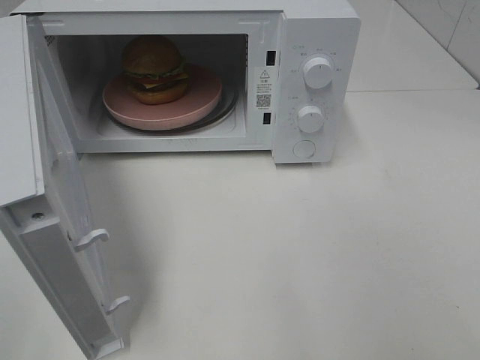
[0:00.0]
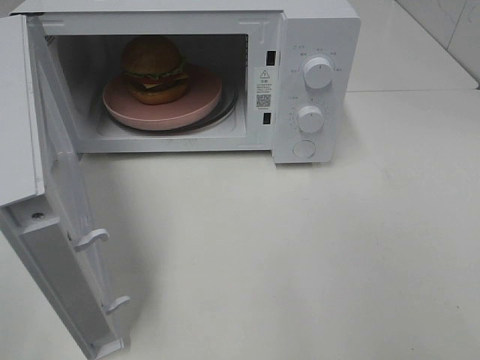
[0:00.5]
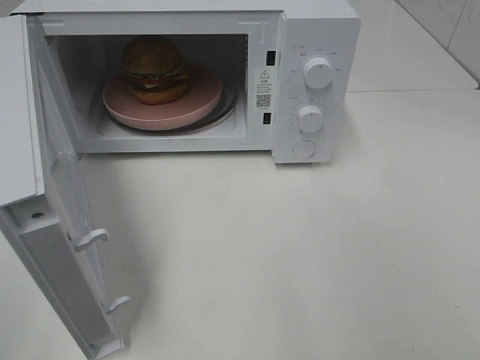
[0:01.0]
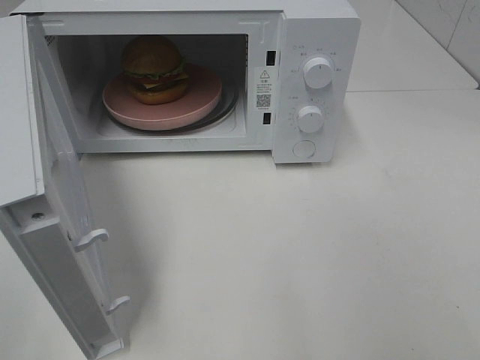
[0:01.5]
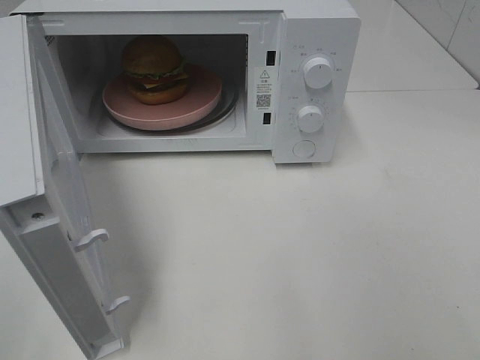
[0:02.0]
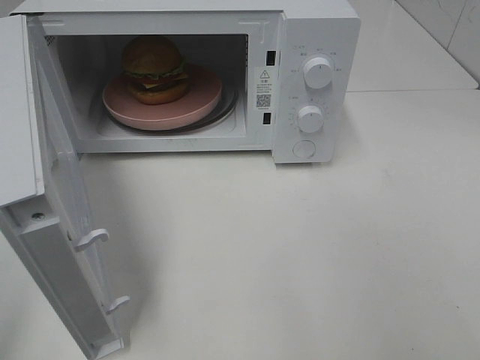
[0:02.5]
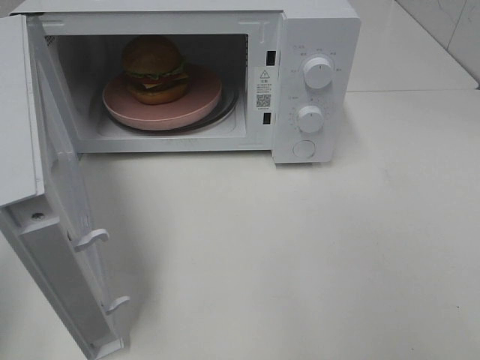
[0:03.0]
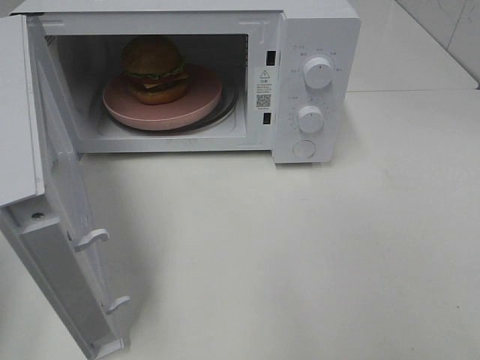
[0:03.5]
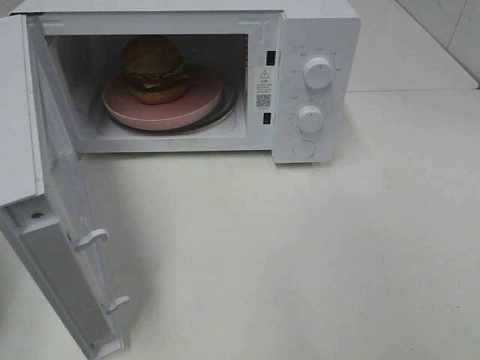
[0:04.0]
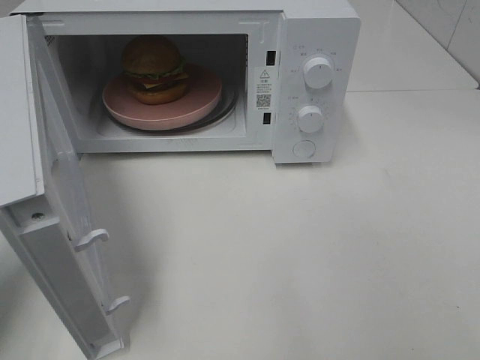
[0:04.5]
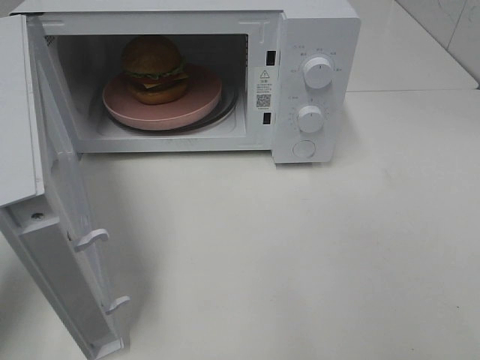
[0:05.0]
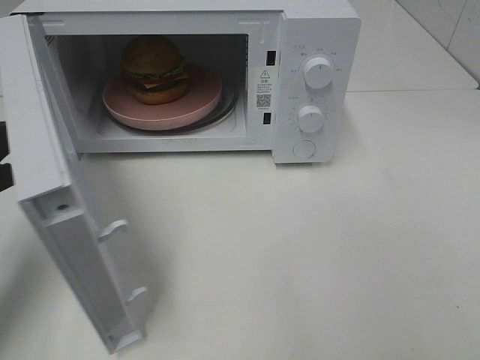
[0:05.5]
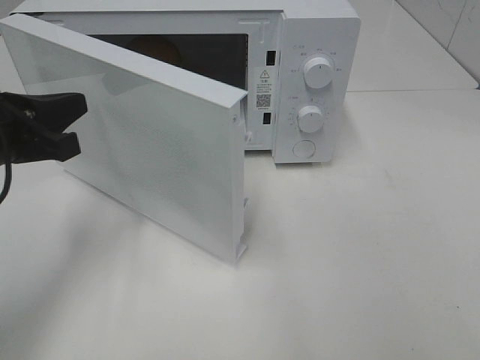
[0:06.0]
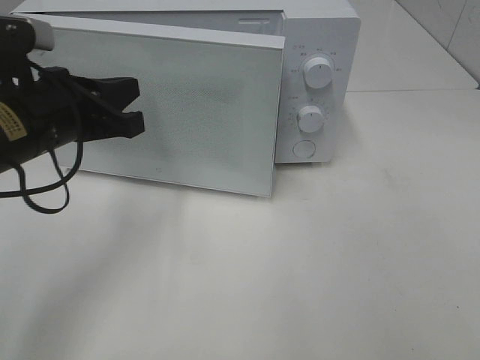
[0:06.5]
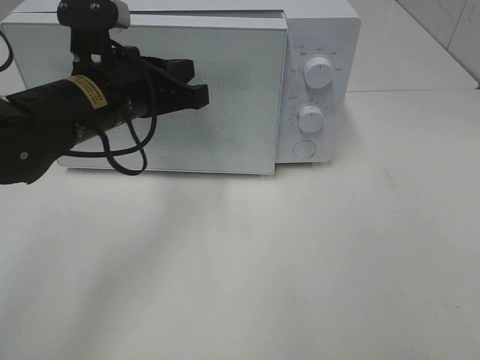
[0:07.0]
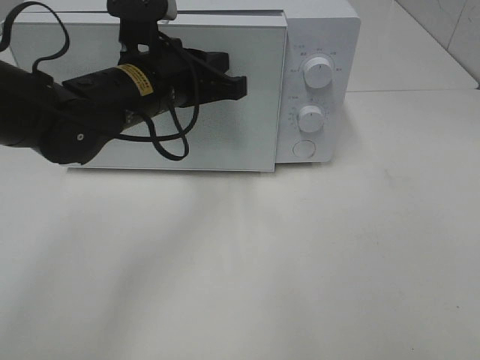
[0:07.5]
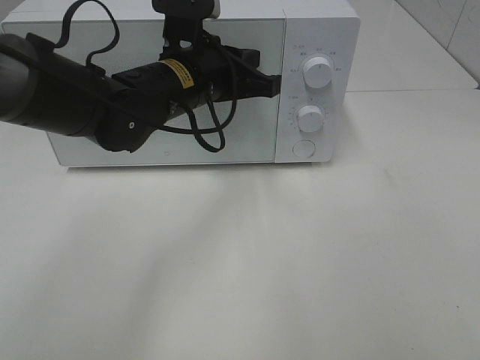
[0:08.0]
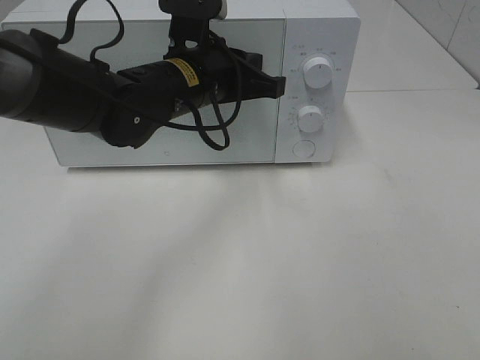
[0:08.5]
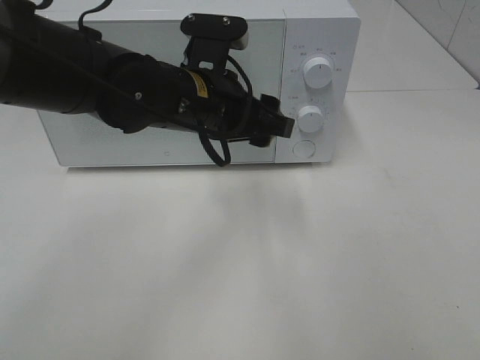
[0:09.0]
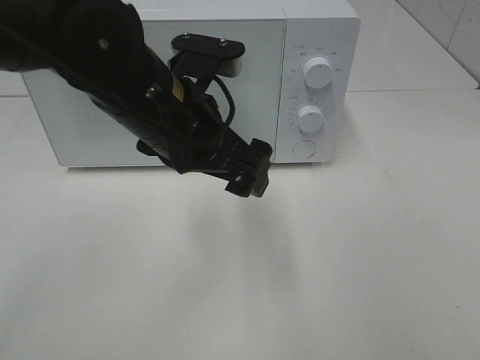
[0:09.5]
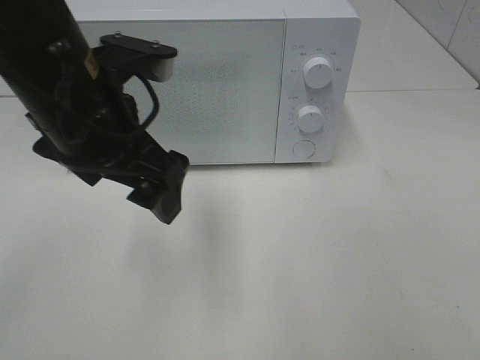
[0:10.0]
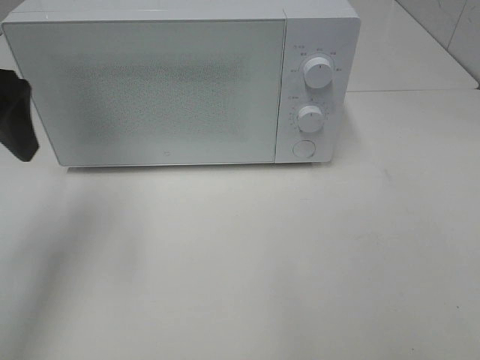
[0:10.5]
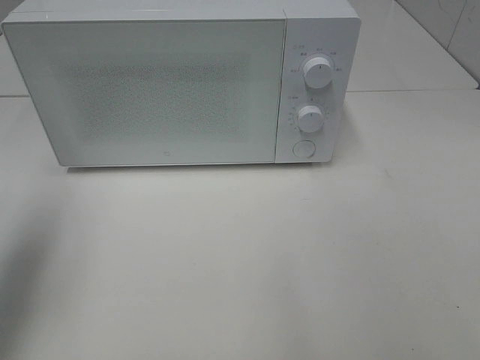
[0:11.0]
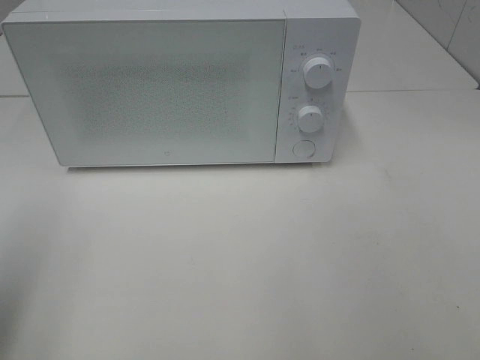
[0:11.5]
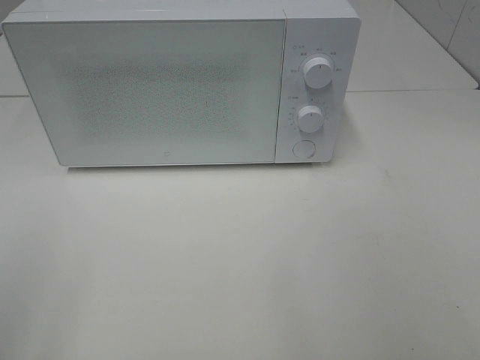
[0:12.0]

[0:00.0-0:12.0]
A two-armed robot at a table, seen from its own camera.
Task of the whole recording: Heat the burger.
Step, 0:00.0 to 0:08.5: Left hand: close the microwave door.
0:00.0 to 0:02.0: Neither gripper changes place.
0:04.0 to 0:06.0: The left gripper travels to the right and forward by approximately 15 cm.
0:06.0 to 0:08.0: The left gripper goes some 20 cm to the right and forward.
0:08.0 to 0:10.0: The left gripper heads backward, to the left and upward, covering about 15 cm, and opens up.
0:10.0 to 0:12.0: The left gripper heads backward and to the left, covering some 30 cm.

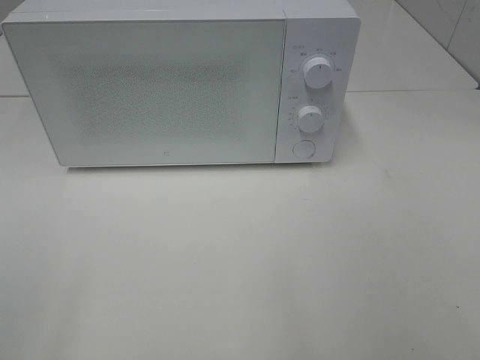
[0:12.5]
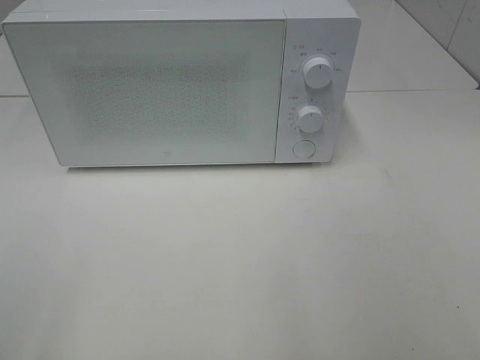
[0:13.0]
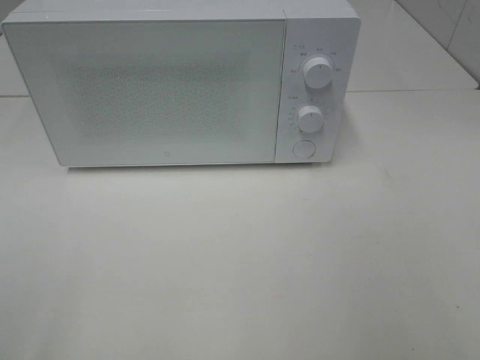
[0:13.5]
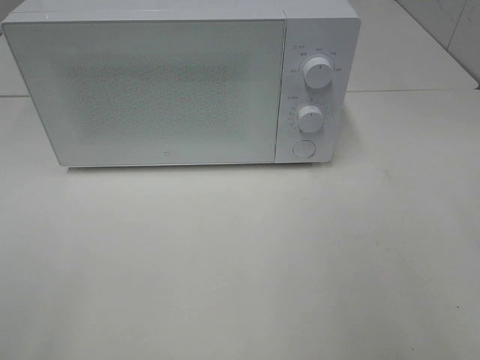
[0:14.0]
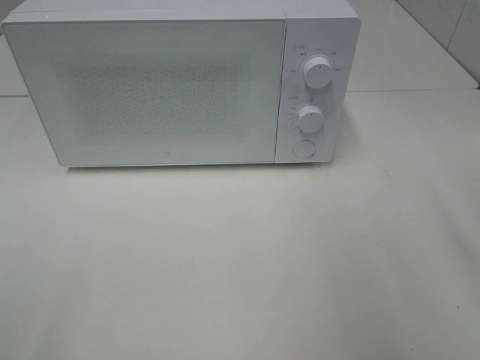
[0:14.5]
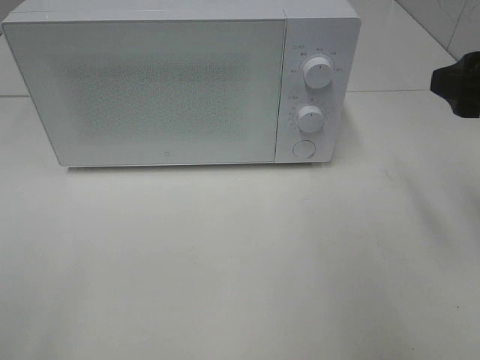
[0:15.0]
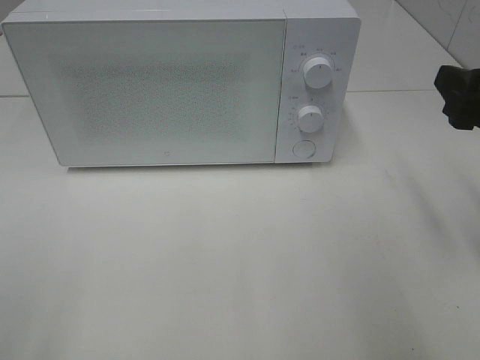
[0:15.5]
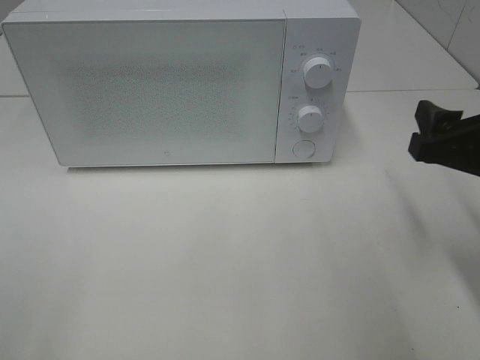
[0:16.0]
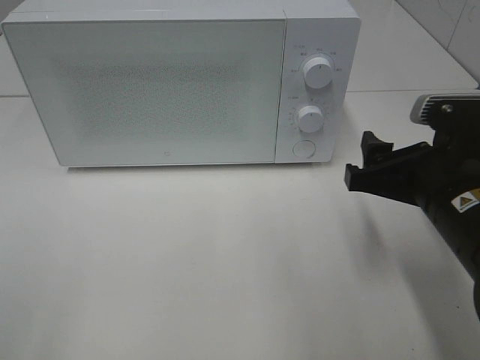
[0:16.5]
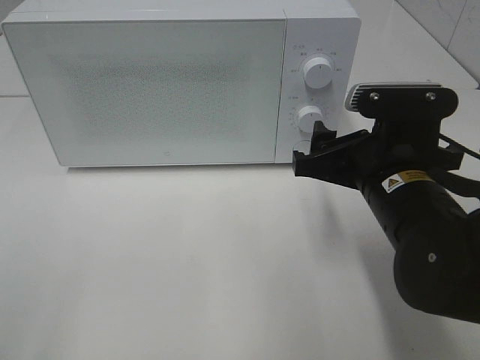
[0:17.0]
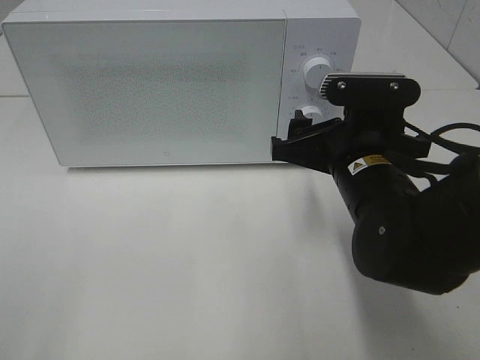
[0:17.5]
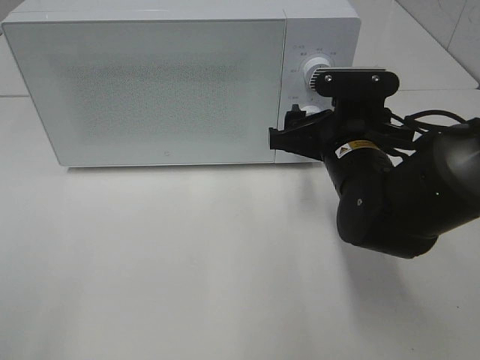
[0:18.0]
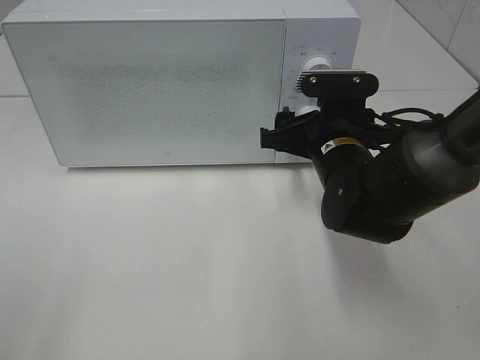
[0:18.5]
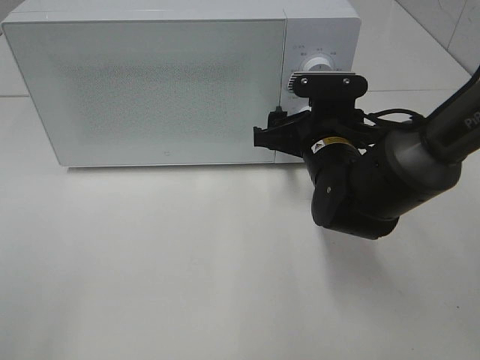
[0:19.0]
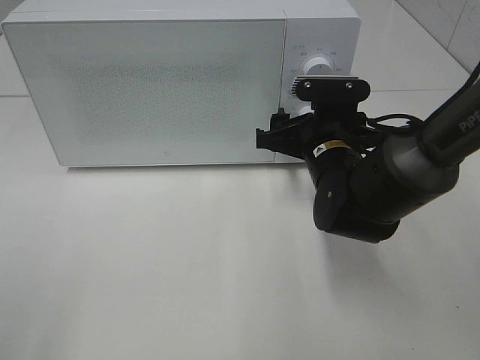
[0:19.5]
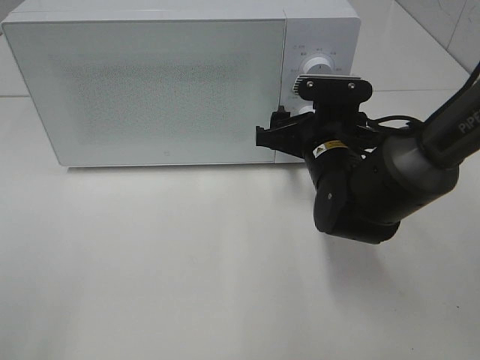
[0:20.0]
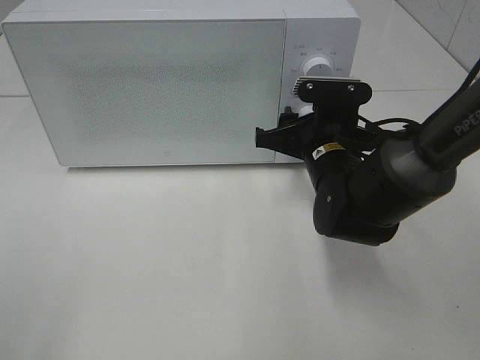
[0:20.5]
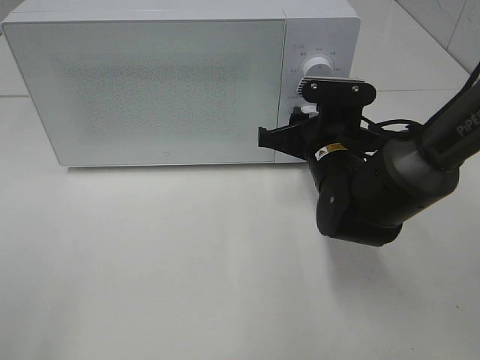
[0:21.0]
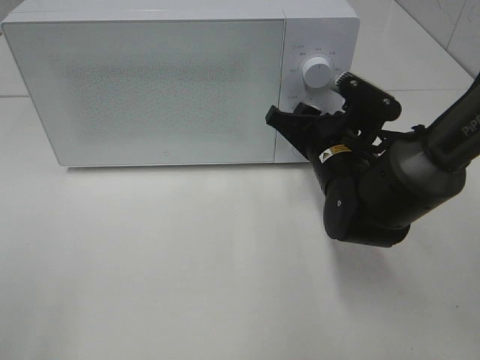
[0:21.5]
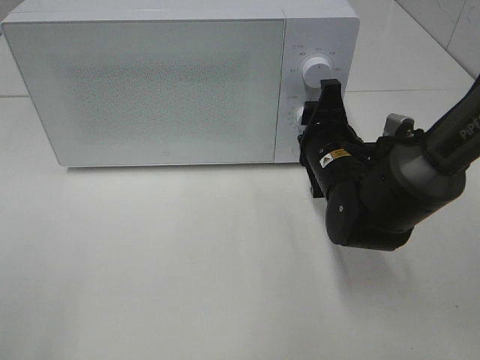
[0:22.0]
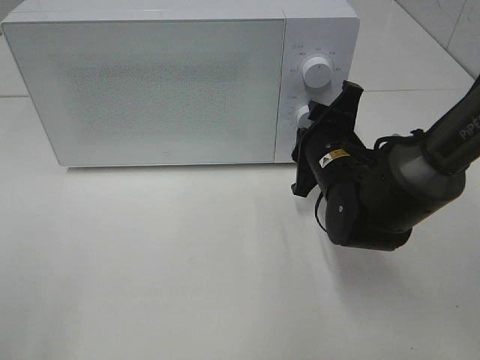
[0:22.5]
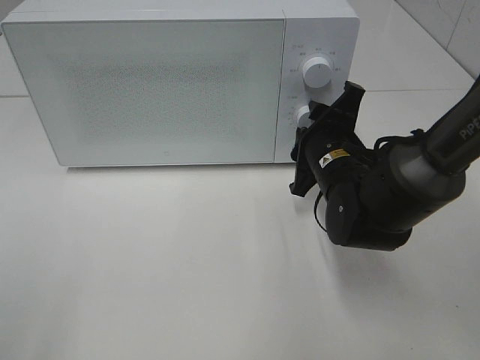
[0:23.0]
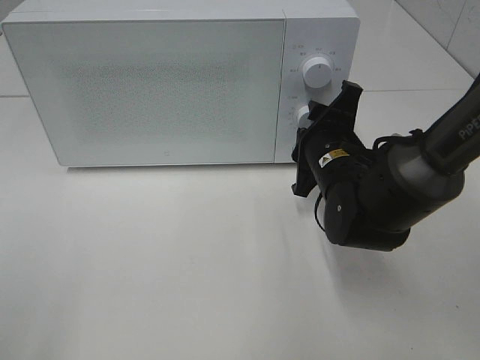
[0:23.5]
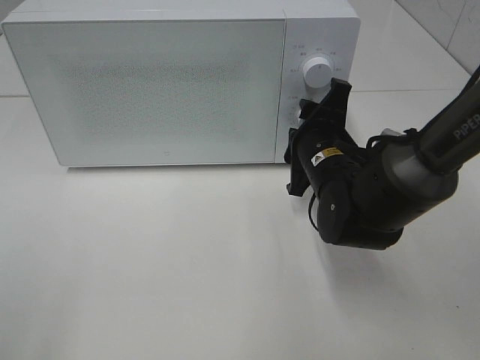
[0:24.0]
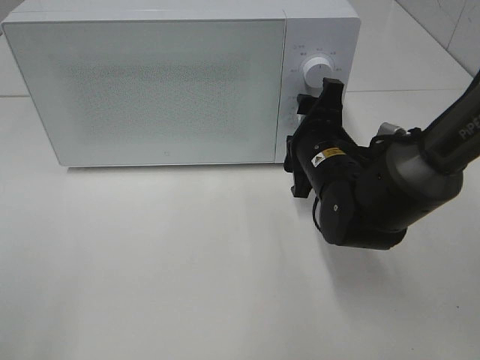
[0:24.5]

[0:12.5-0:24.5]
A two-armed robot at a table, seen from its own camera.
Task of the whole recording: Heat the burger.
Step, 0:12.5 to 0:24.0: Right hand: twist timer button.
0:14.5 to 0:16.5: The right gripper shifts roughly 15 cm downward and to the left.
0:16.5 to 0:18.5: The right gripper heads forward and to the left, covering approximately 15 cm.
0:18.5 to 0:20.5: There are only small adjustments of the grippers.
0:22.5 to 0:24.5: The grippers move only a little.

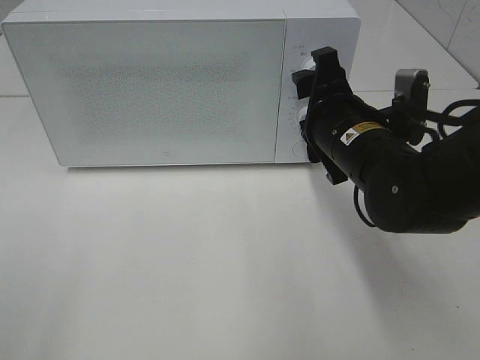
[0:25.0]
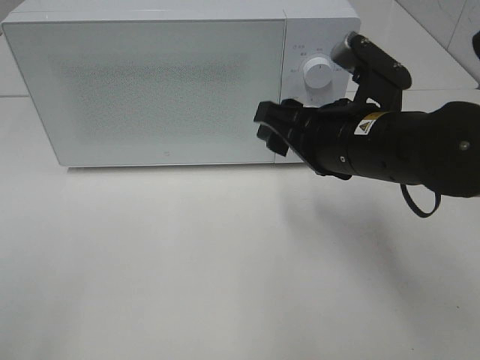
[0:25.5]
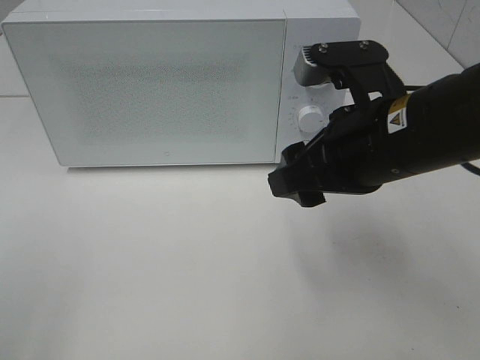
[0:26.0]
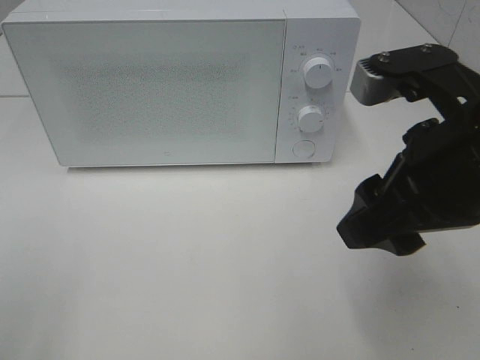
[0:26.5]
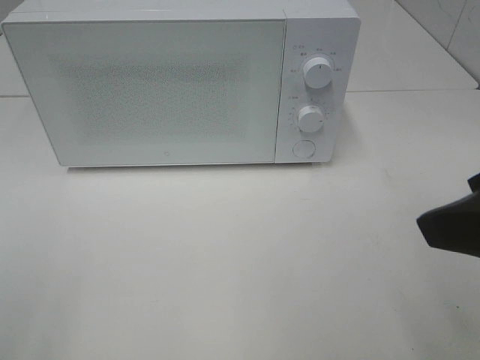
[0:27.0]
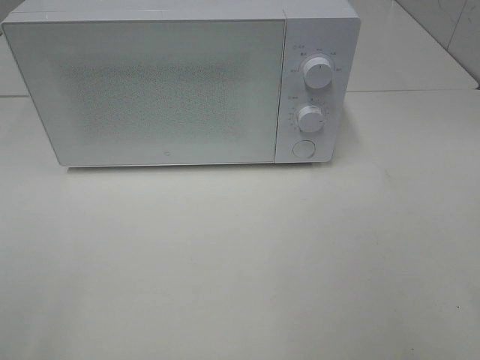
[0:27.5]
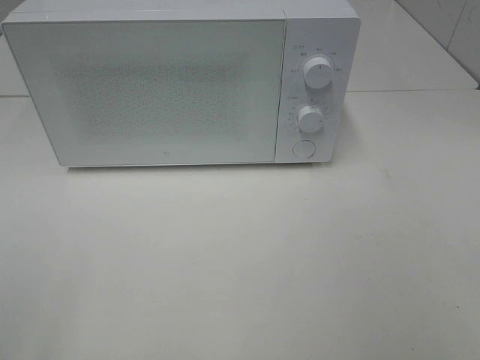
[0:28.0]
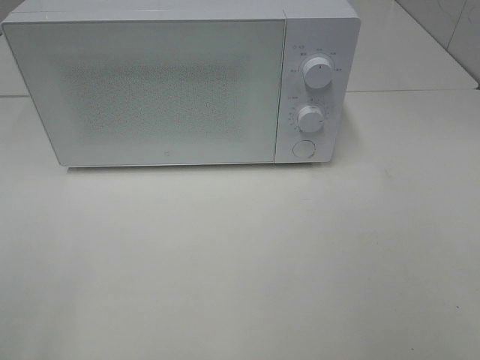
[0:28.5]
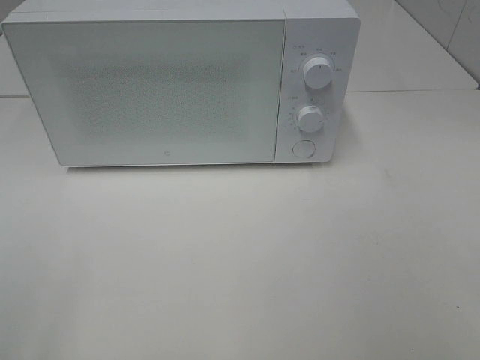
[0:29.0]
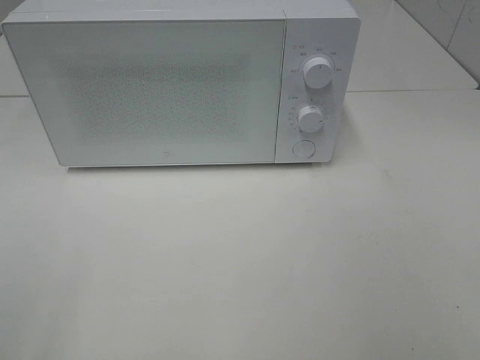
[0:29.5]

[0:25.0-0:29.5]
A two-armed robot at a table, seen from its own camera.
Task of the whole recording: Heat the burger.
0:25.0 to 0:27.0: The right gripper moves backward, upward and to the right, some 25 cm.
0:27.0 to 0:29.5: The right gripper heads backward and to the right, covering some 15 cm.
